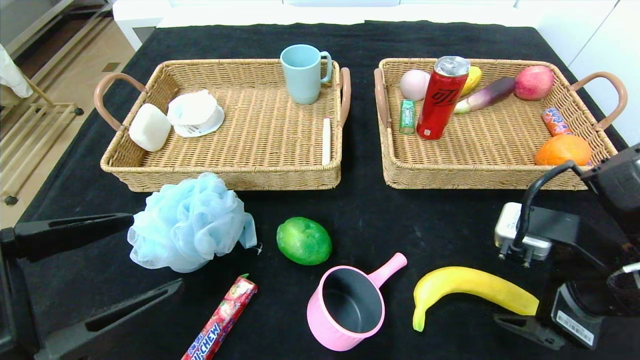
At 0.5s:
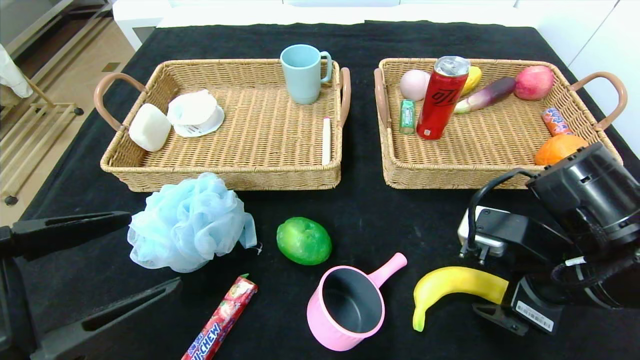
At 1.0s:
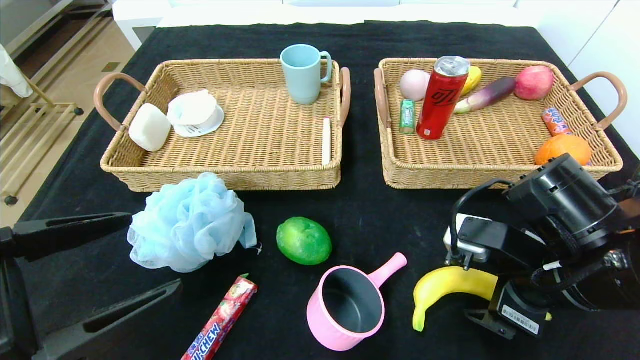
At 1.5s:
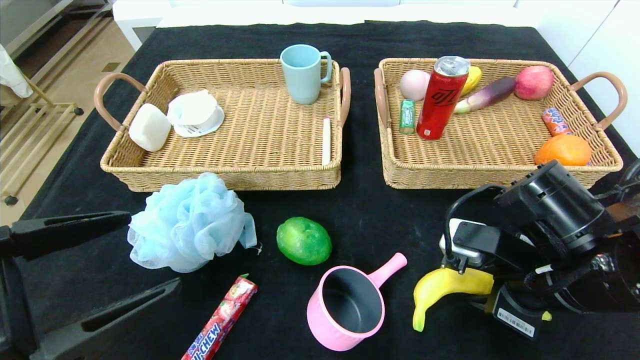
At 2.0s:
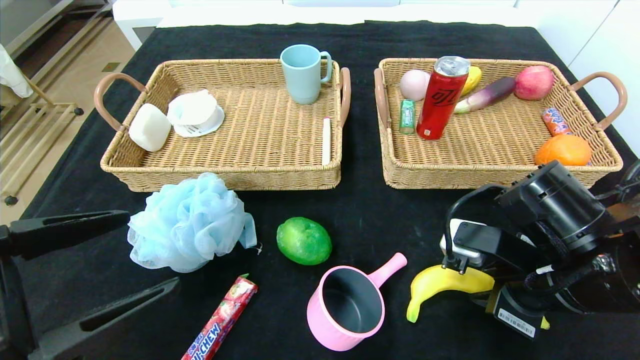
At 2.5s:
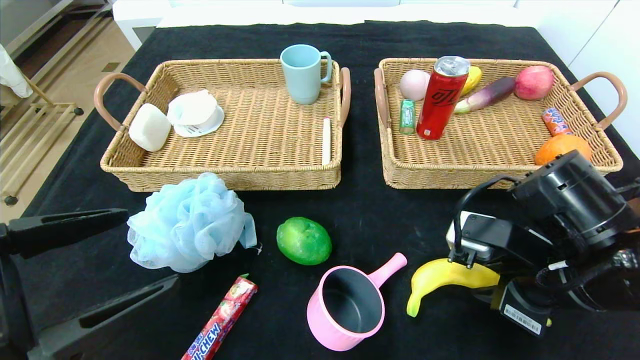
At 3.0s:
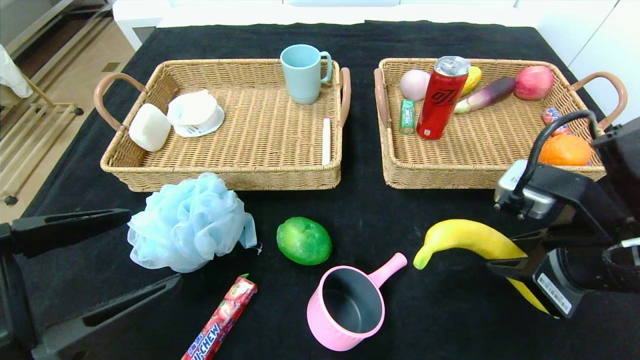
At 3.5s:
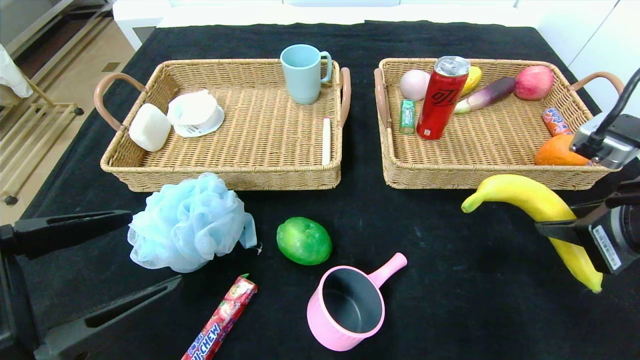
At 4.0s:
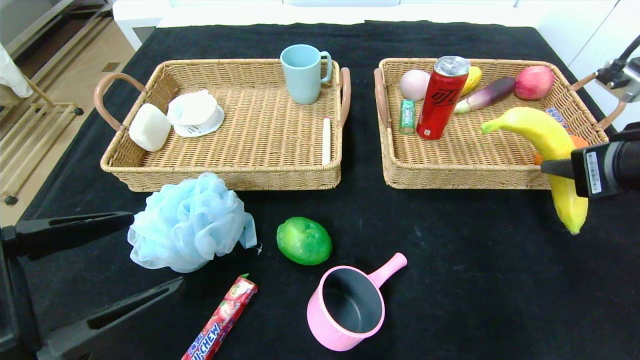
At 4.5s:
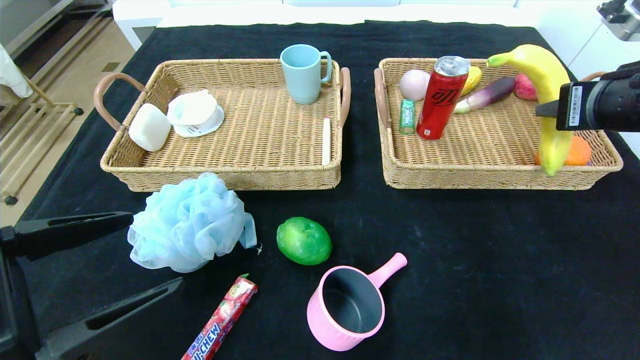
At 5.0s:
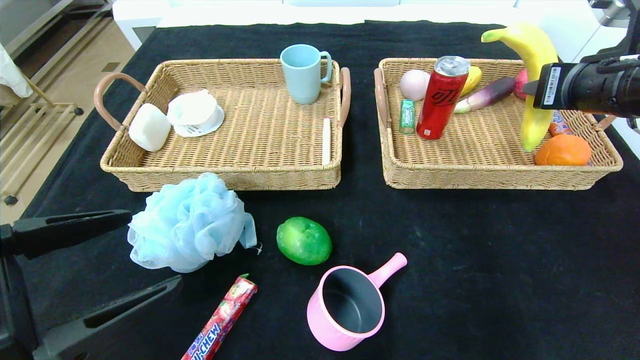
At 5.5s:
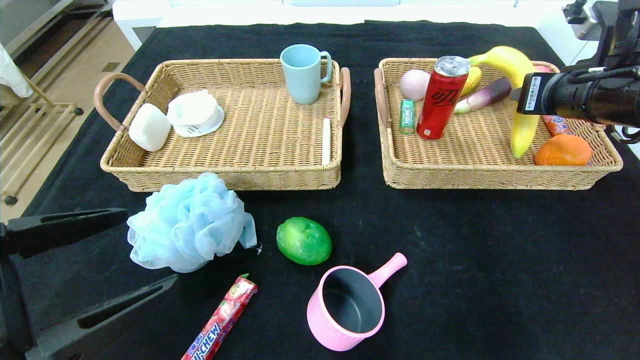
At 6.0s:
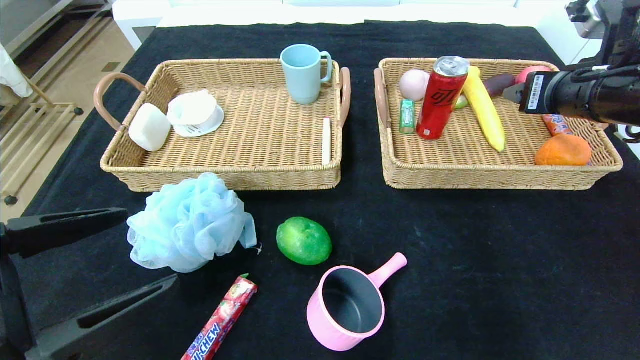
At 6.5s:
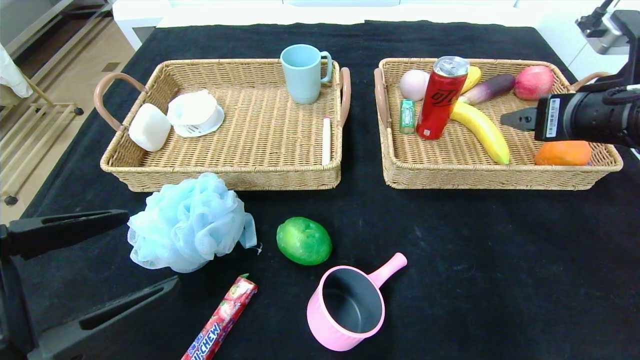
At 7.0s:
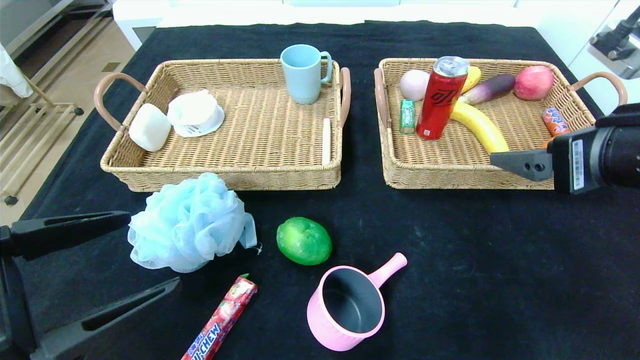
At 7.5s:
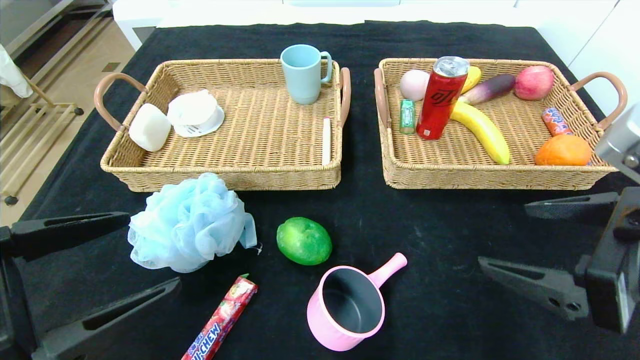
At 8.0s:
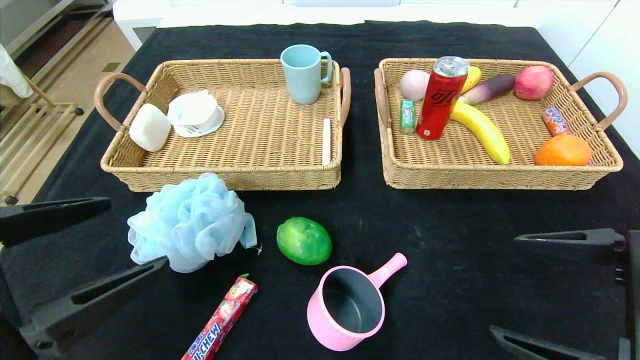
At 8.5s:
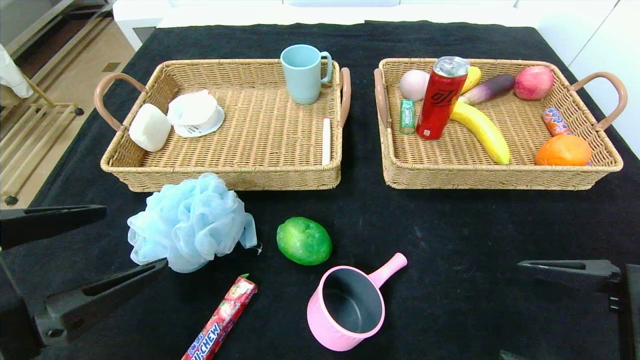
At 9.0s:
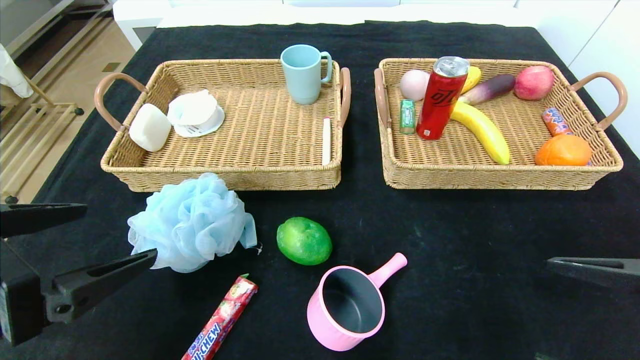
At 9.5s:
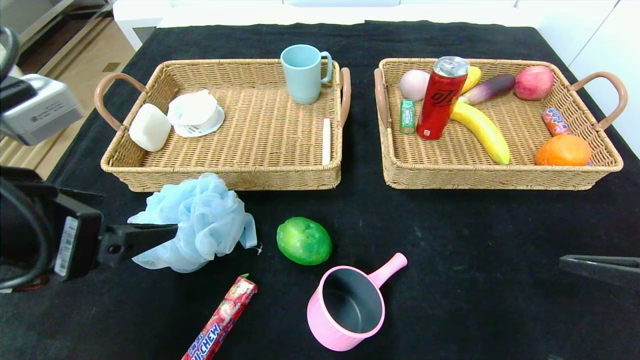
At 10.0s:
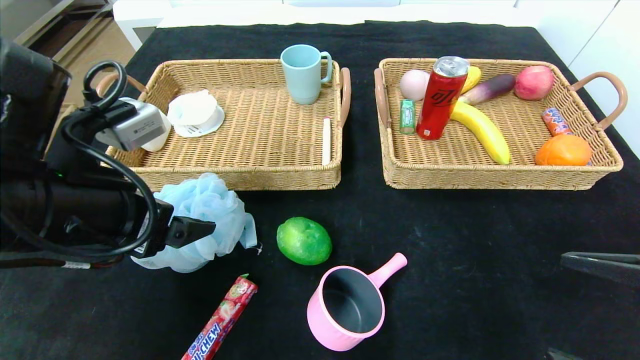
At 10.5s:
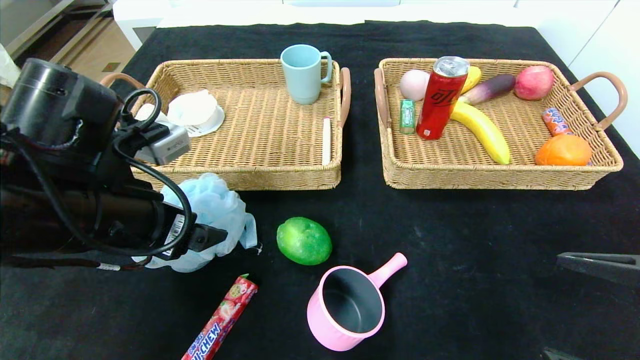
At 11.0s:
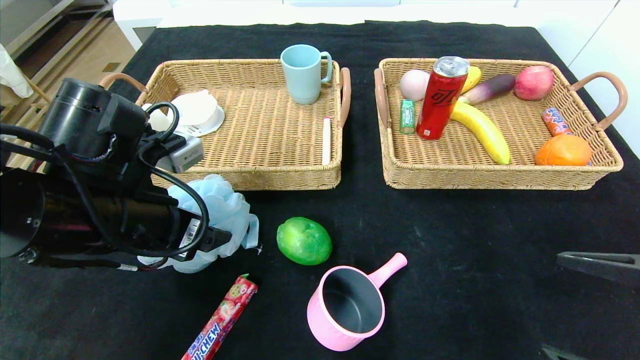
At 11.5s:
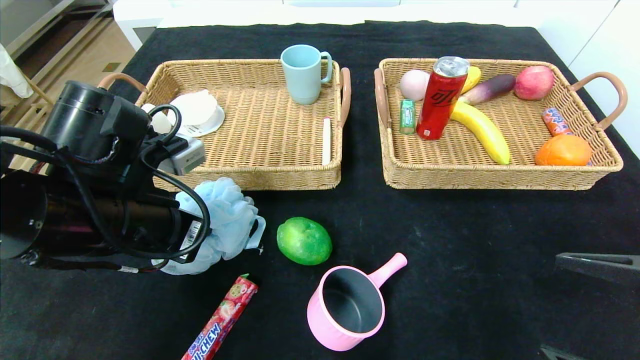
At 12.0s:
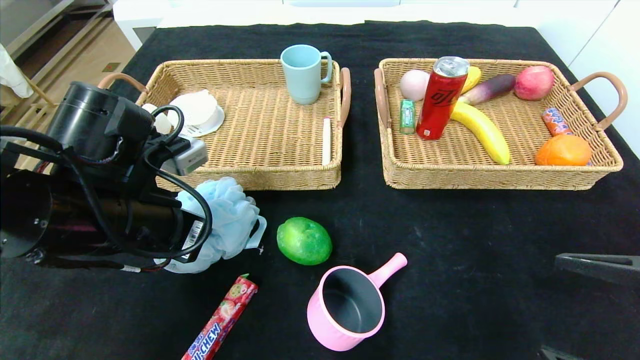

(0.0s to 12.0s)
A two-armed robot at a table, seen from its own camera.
Step, 0.0s - 6.0s: Grasp the banana and put it in the right basket.
0.0s - 2.0s: The right gripper changes place by about 5 cm, and closes up.
2.0s - 4.0s: The right gripper travels upward and to the right by roughly 15 cm.
4.0s - 6.0s: The right gripper moves forward, roughly 10 cm, and opens up.
6.0s - 8.0s: The right gripper travels backward and downward by approximately 20 cm.
8.0s - 10.0s: The right gripper shifts by roughly 5 cm. Meanwhile the left gripper travels forward by approximately 10 cm.
10.0s - 12.0s: The left gripper closes.

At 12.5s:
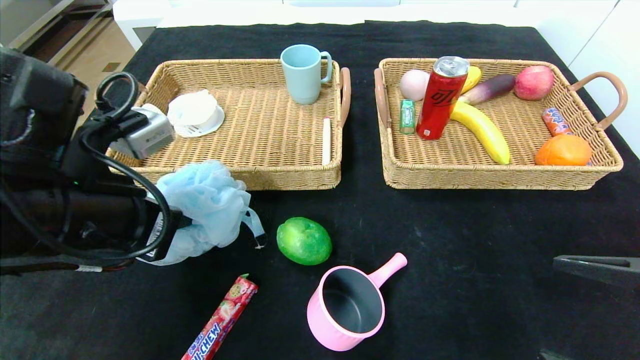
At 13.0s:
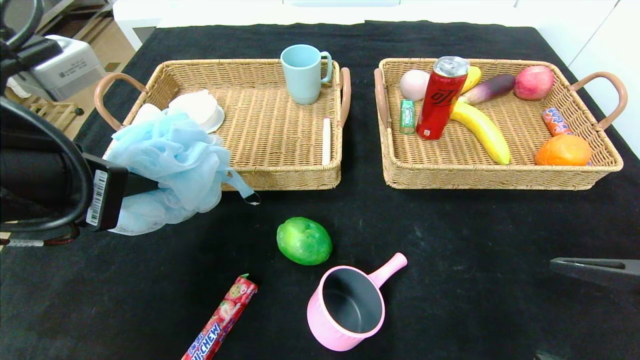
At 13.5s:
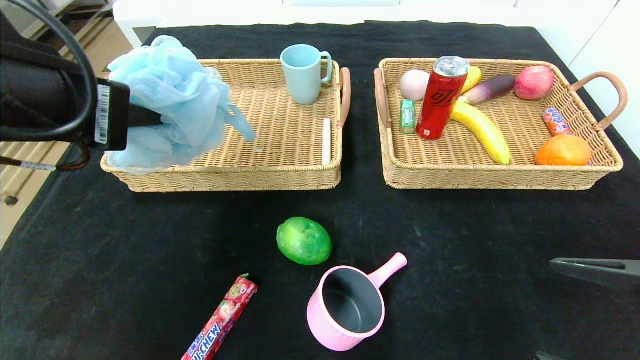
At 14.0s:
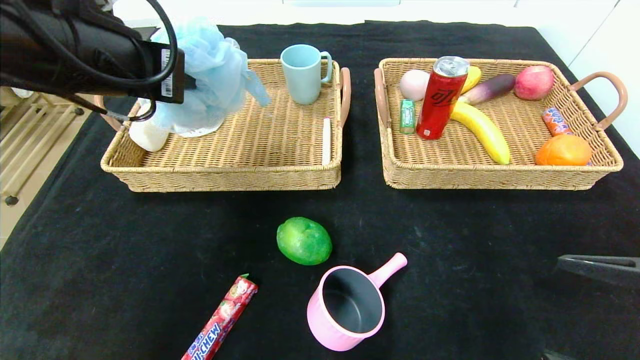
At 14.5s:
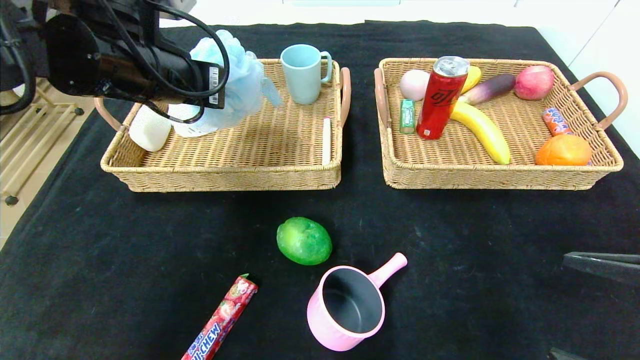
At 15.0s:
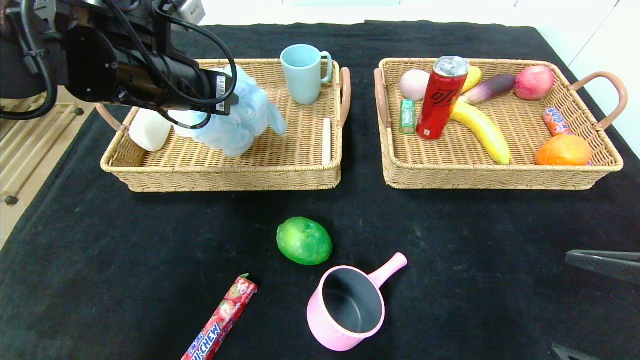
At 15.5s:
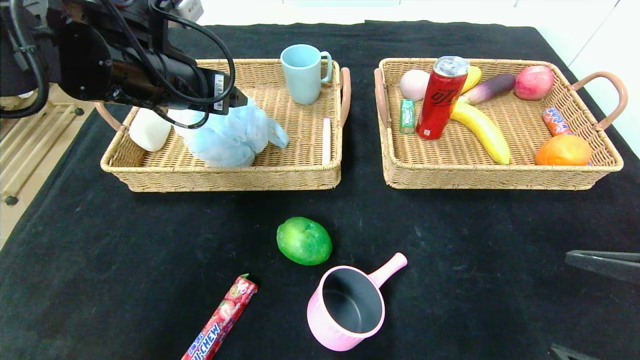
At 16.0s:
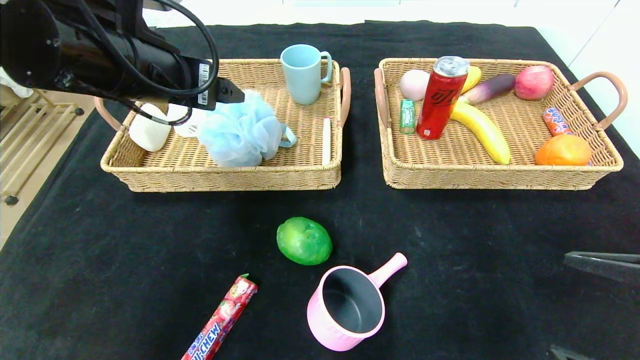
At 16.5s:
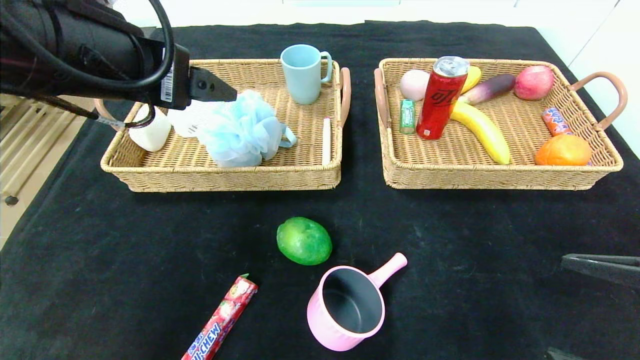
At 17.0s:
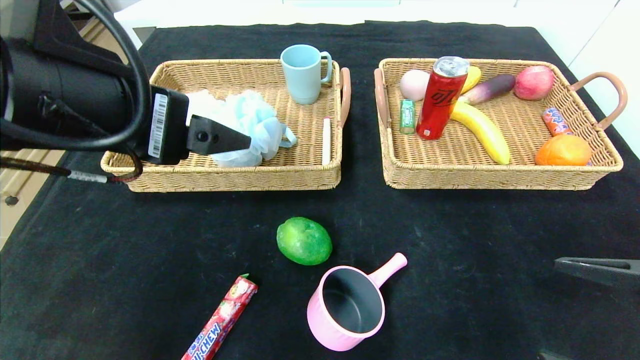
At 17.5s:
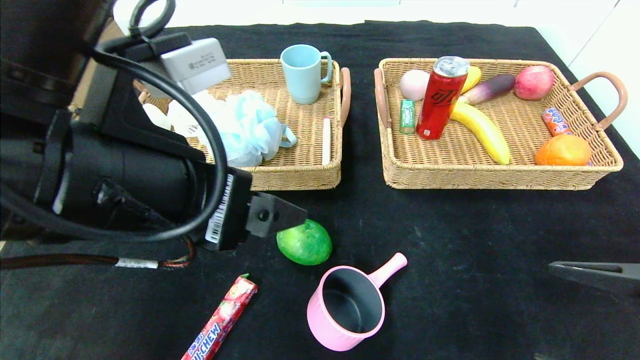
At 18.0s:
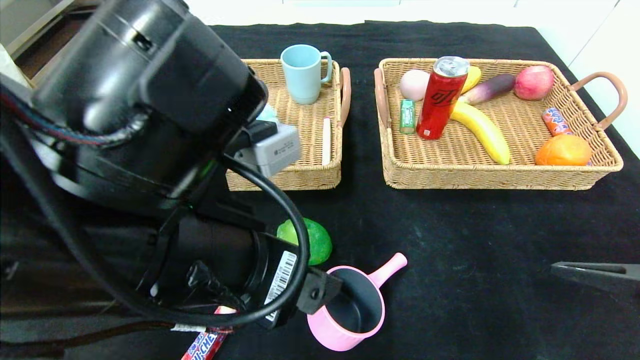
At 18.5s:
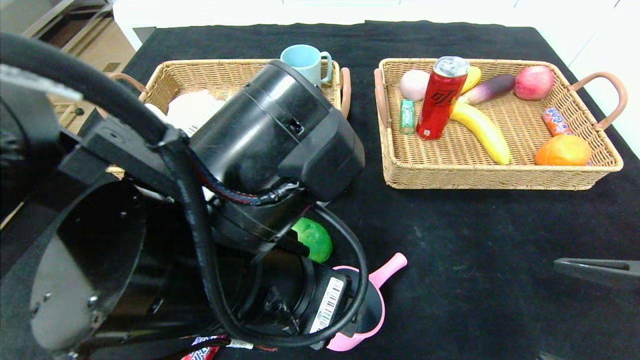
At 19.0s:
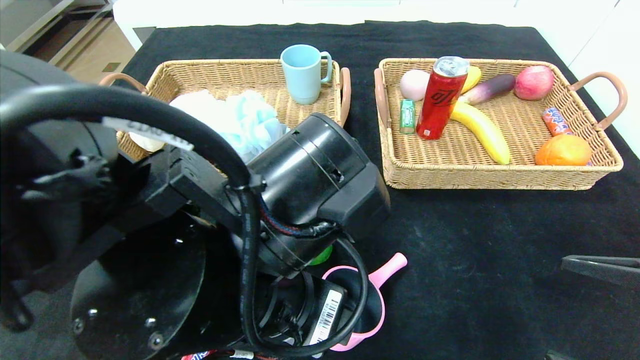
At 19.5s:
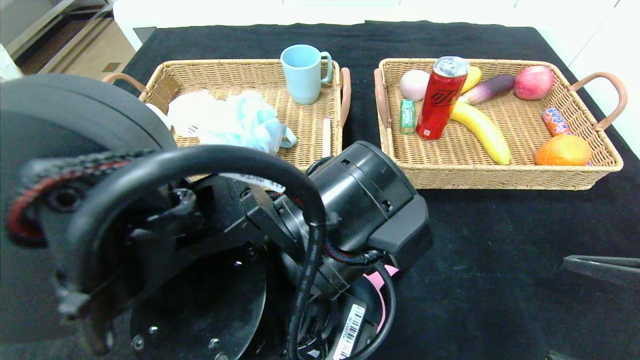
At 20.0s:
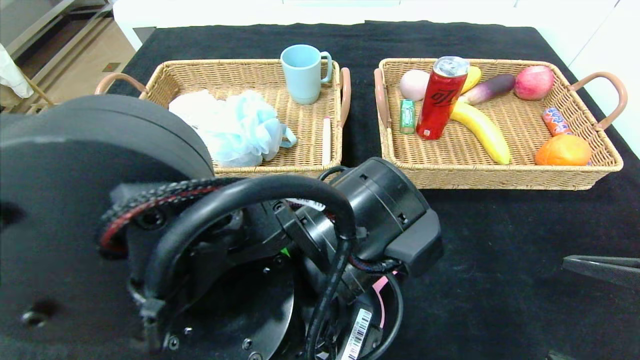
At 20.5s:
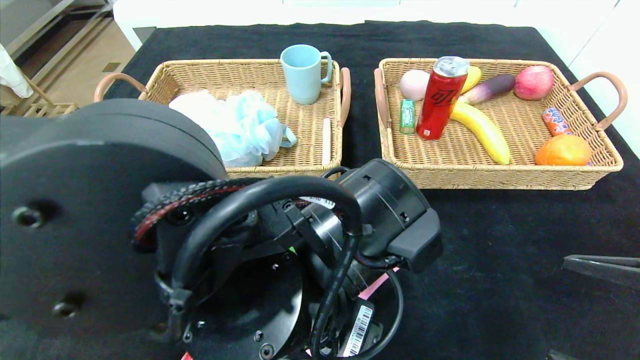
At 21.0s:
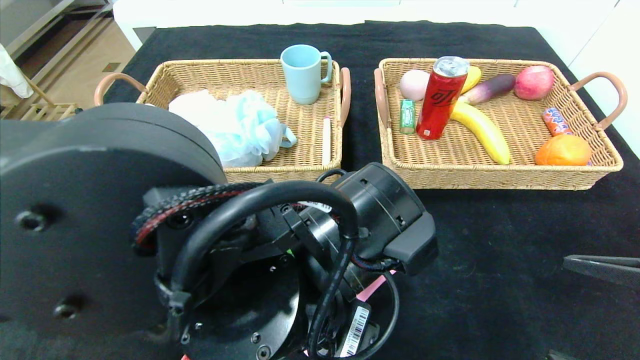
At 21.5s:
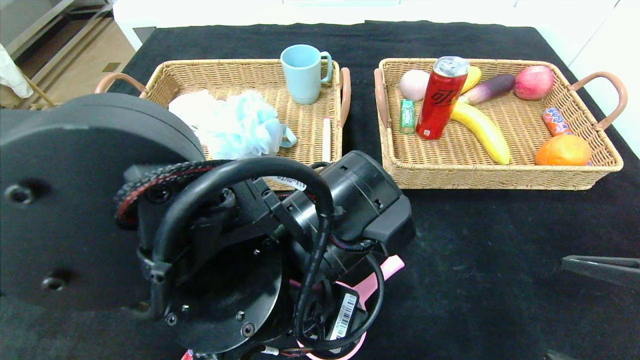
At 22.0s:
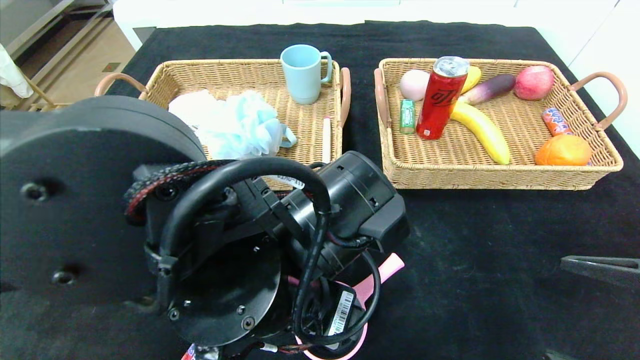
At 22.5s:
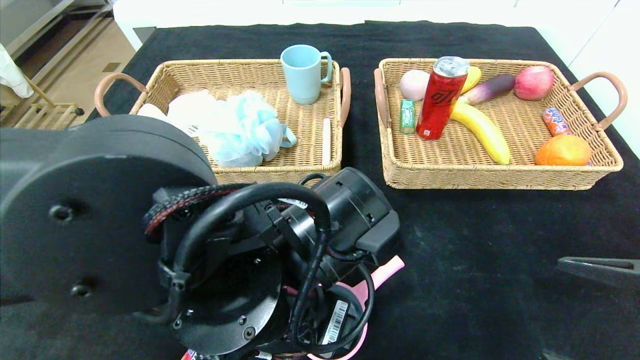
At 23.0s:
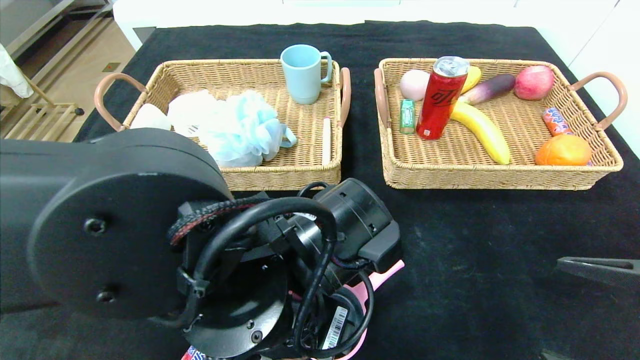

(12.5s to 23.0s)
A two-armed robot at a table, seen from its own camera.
Step, 12.5s - 15.0s: Grasp the bath ball and put it in the left basket.
12.5s - 14.5s: The left gripper travels forward and upward by roughly 15 cm.
14.5s - 16.5s: The left gripper moves backward, approximately 10 cm, and opens up.
16.5s - 19.0s: The left gripper moves to the right, downward and backward, approximately 20 cm.
21.0s - 23.0s: The grippers stay close to where they were, moving slightly.
